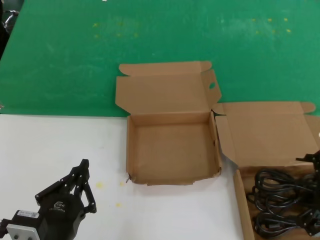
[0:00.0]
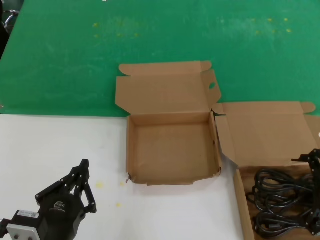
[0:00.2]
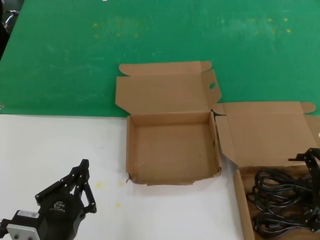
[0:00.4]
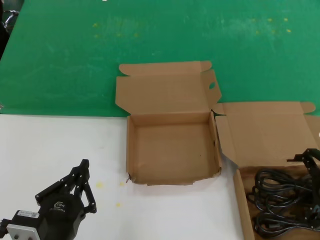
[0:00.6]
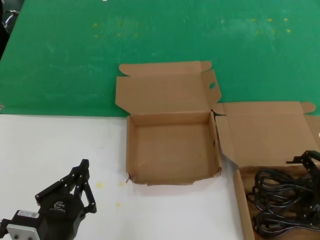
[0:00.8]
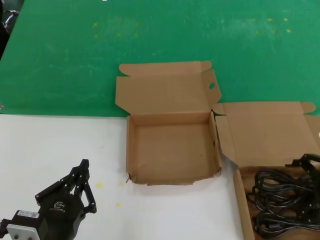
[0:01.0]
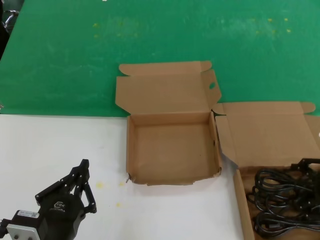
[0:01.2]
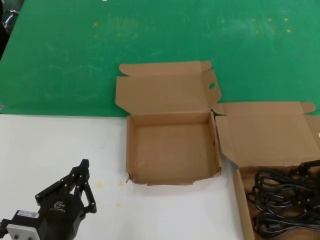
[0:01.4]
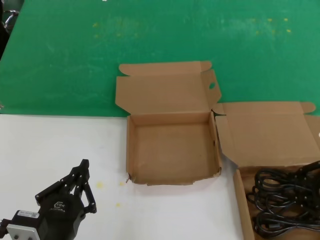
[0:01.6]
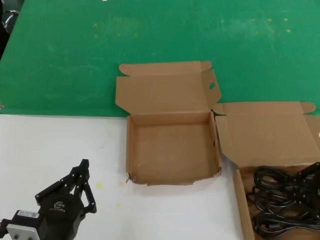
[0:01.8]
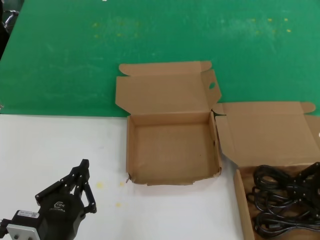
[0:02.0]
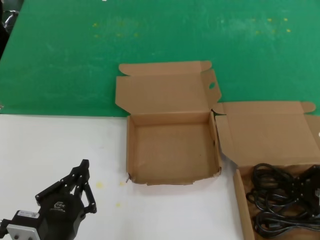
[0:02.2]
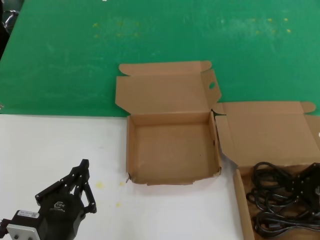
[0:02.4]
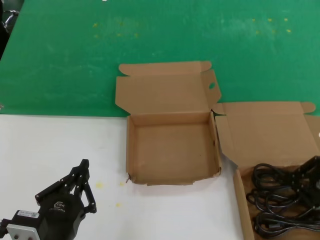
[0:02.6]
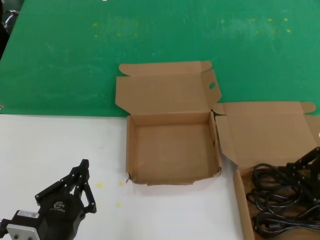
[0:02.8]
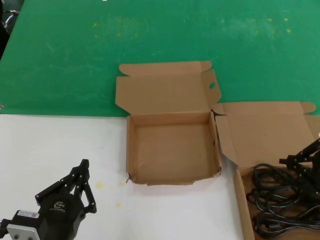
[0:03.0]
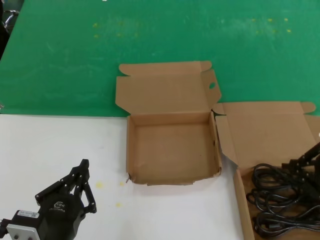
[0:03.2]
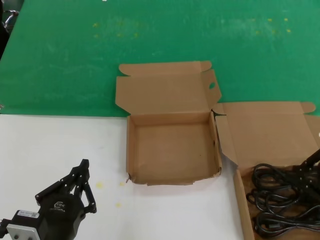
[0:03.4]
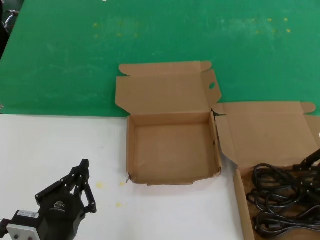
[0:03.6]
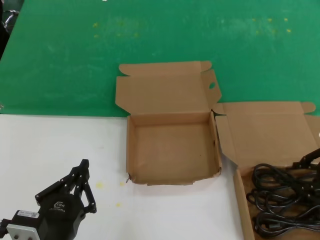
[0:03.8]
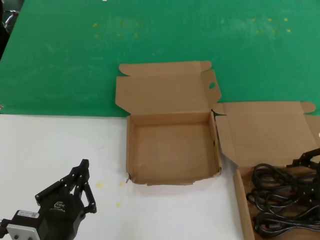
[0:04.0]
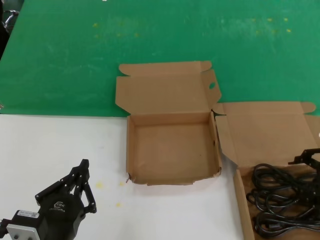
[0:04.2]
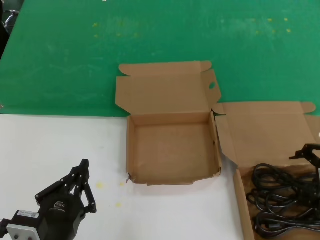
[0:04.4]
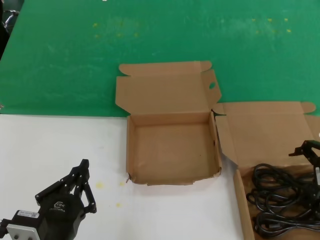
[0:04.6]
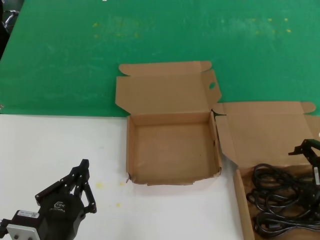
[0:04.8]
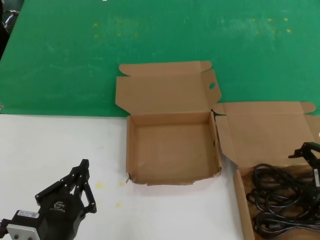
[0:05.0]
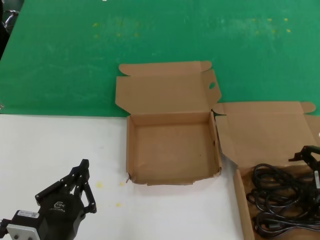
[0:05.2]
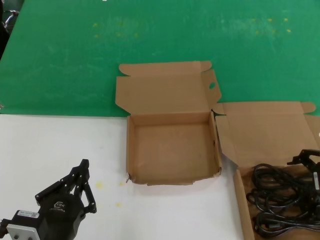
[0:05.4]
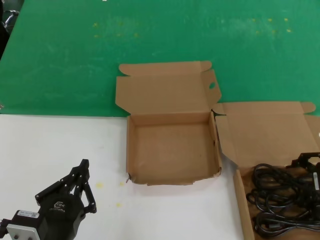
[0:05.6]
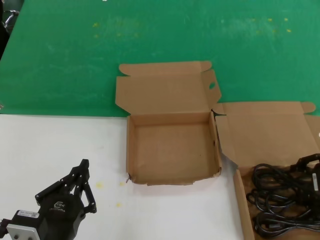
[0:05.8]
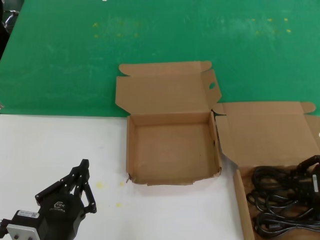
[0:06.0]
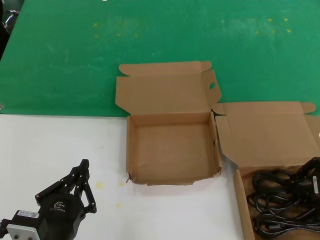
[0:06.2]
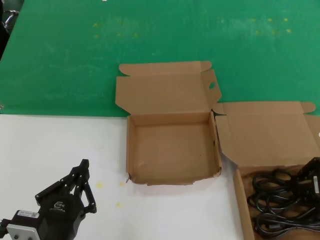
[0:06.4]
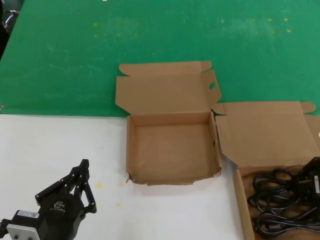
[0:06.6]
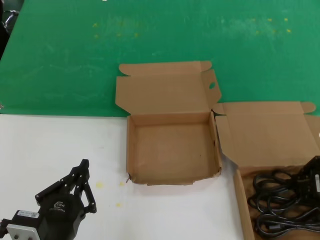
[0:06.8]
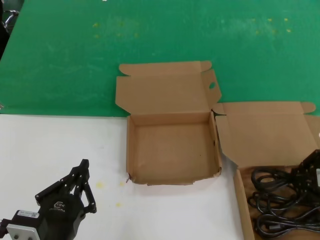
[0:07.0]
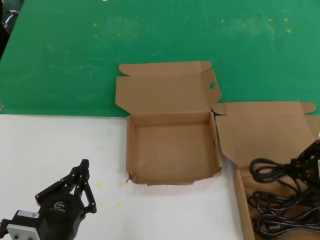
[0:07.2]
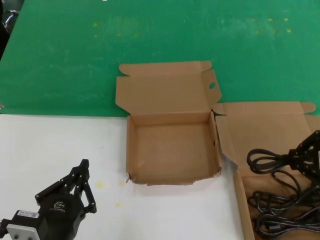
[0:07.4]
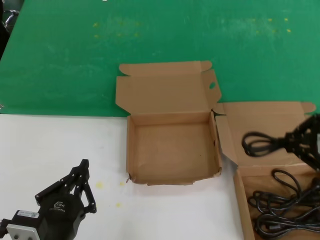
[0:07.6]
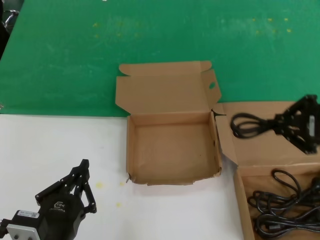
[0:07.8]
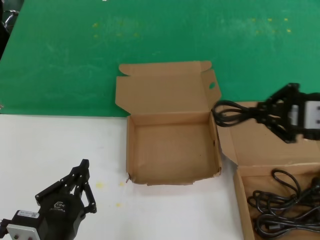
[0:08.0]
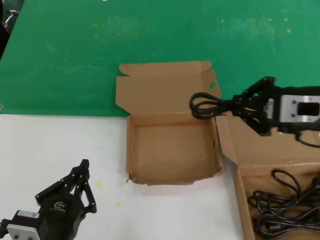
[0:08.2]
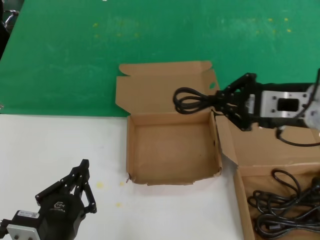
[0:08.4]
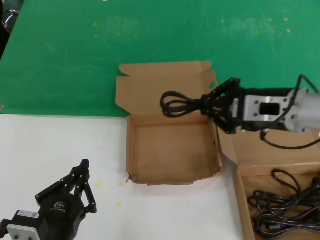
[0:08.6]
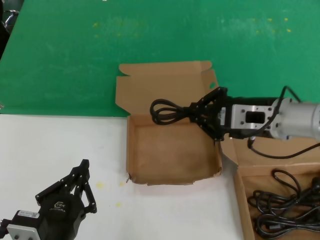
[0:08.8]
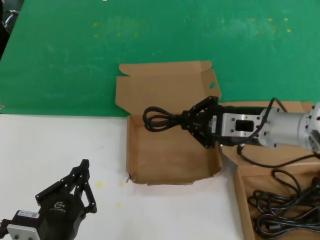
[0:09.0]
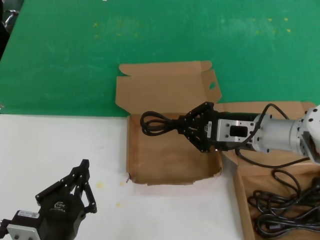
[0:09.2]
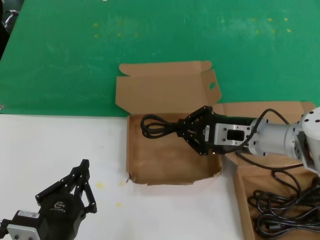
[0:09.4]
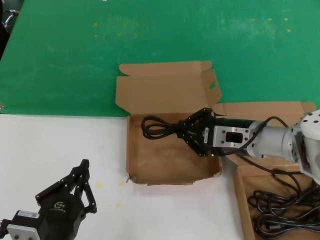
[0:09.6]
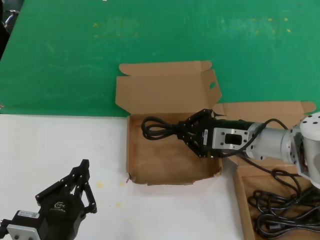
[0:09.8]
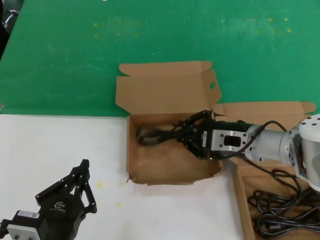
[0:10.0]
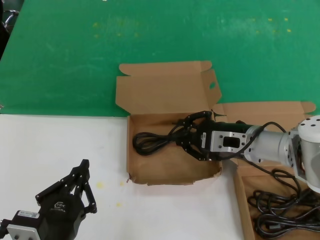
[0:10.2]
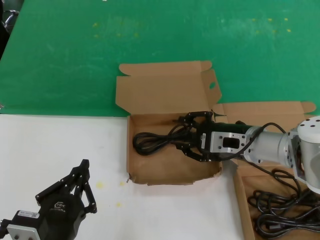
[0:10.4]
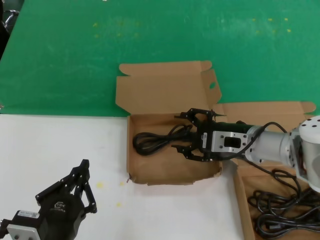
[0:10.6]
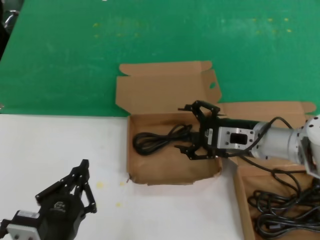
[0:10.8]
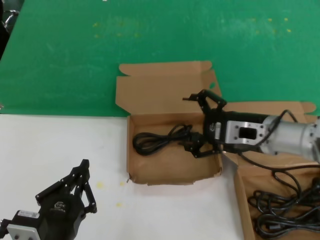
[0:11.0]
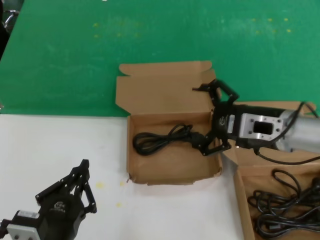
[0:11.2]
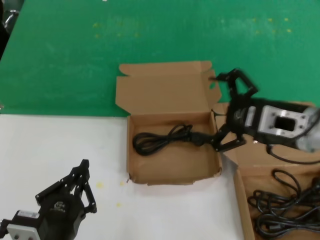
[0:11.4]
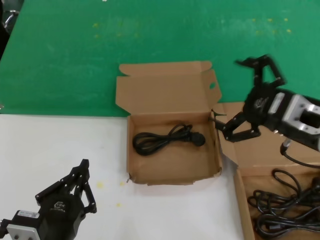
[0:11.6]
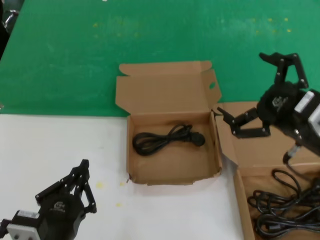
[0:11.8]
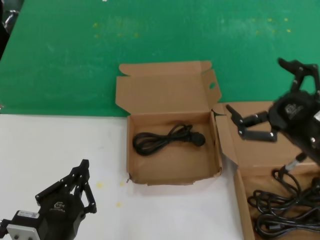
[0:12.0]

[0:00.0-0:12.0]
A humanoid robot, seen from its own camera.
Task of the whole recording: take the parts from the box containing them and put them into an empty box.
Step, 0:06.8 to 0:11.0: Place the data cable in the another box.
0:01.6 to 0:03.0: The hands make only small movements.
0:06.0 to 0:07.6: The right hand is displaced upward by roughly 5 cm.
0:07.6 to 0:09.0: The right hand heads to the left and forward, covering approximately 15 cm.
0:09.0 to 0:10.4: The right hand travels downward by roughly 5 cm.
0:10.4 to 0:12.0: The right hand moves backward and to the right, some 20 cm.

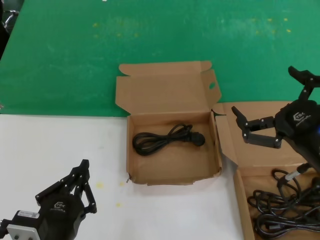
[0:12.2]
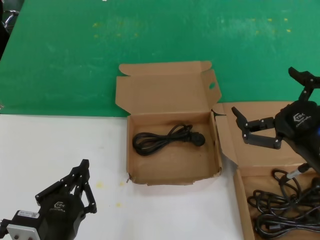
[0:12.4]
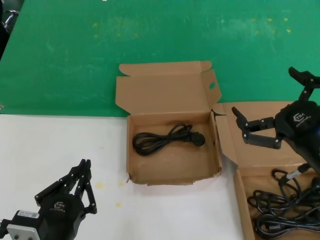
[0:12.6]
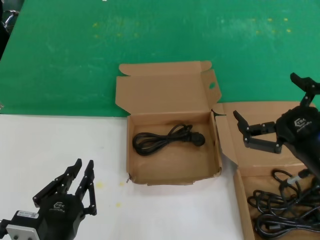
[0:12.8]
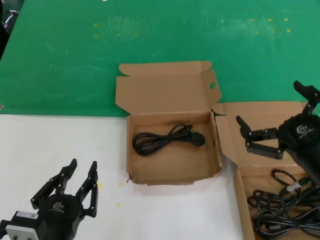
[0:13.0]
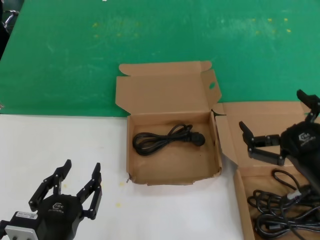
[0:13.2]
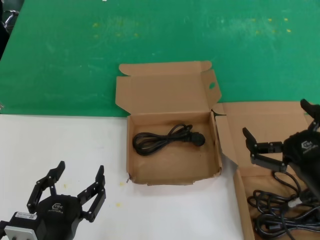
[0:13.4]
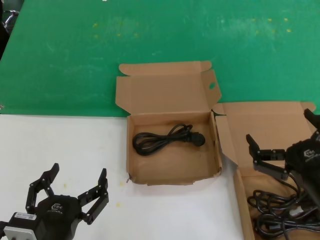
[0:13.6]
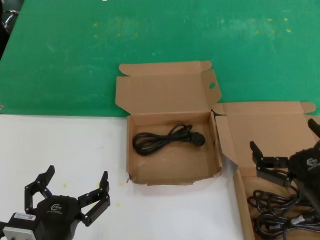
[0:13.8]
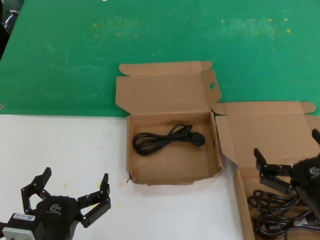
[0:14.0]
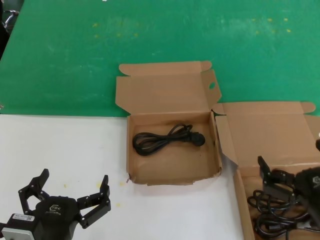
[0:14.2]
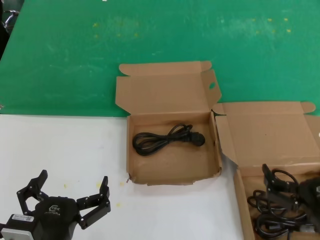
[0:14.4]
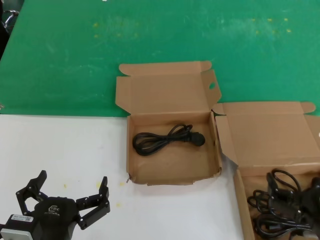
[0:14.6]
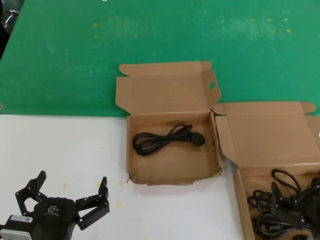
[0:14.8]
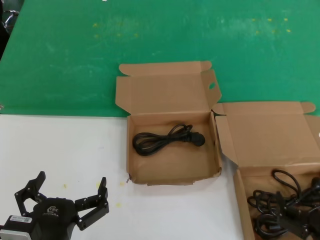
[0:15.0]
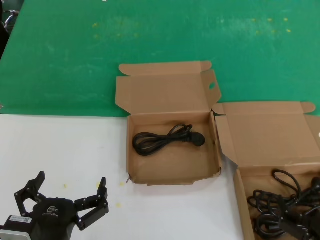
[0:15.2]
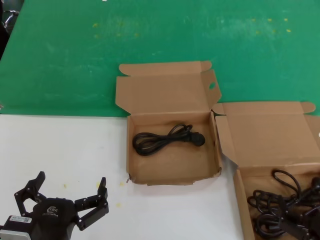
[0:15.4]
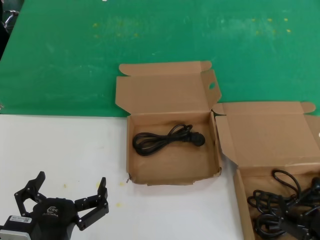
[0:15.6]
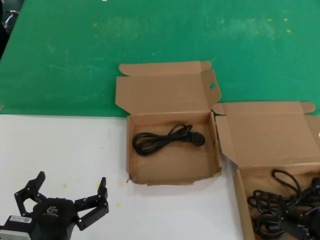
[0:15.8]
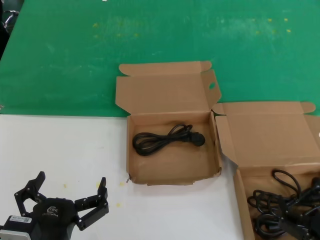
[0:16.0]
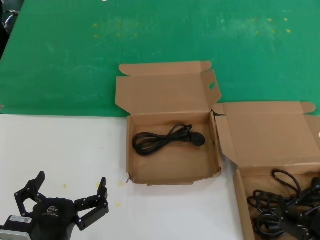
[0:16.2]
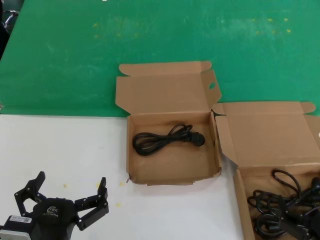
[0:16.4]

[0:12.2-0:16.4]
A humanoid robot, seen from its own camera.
Task of the whole recording: take the parts from the box containing them and put them into an empty box.
0:12.2 to 0:13.6: The right hand travels downward by approximately 5 cm.
0:13.6 to 0:15.0: The right hand goes some 10 cm downward.
0:15.0 to 0:16.4: Both hands stay put.

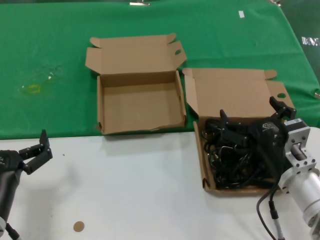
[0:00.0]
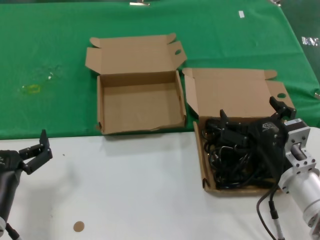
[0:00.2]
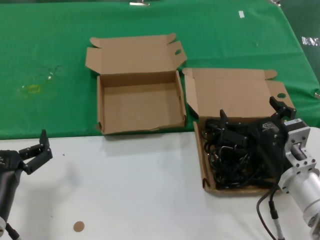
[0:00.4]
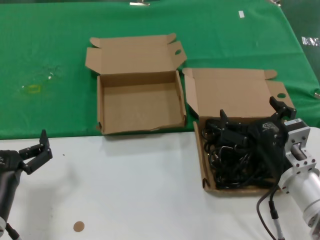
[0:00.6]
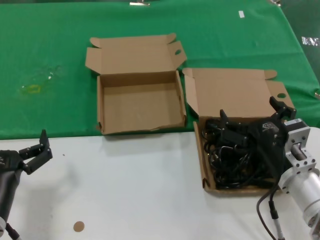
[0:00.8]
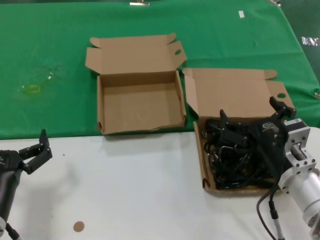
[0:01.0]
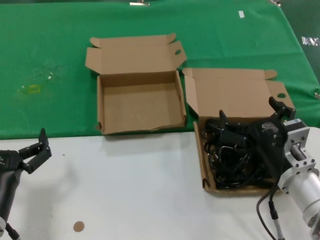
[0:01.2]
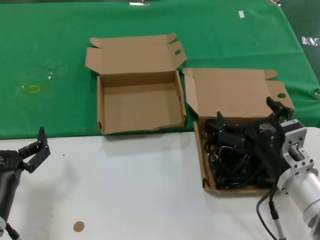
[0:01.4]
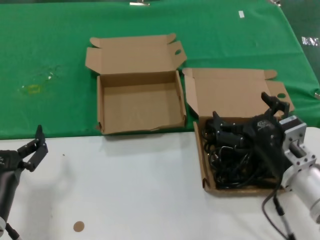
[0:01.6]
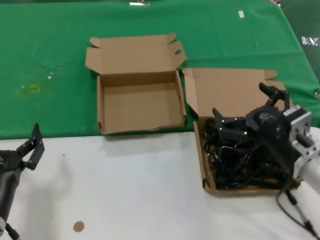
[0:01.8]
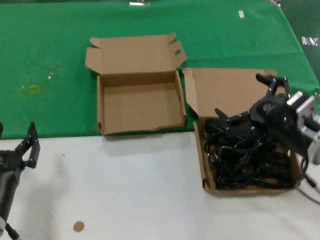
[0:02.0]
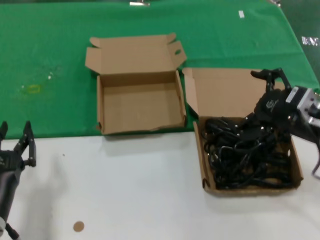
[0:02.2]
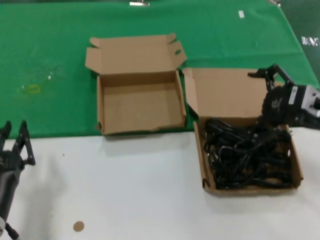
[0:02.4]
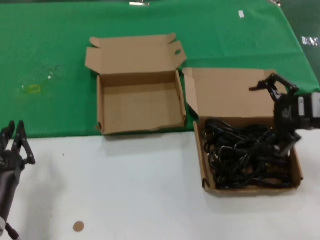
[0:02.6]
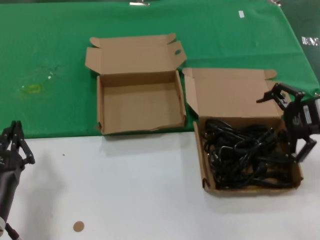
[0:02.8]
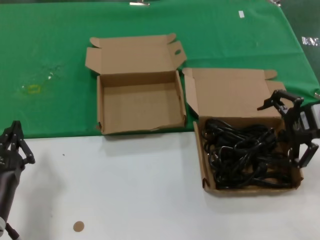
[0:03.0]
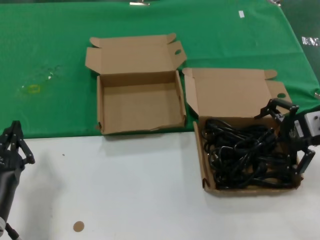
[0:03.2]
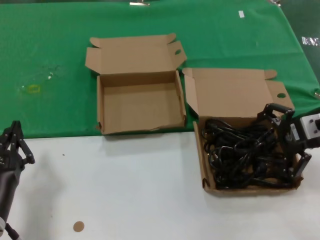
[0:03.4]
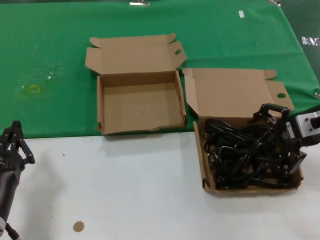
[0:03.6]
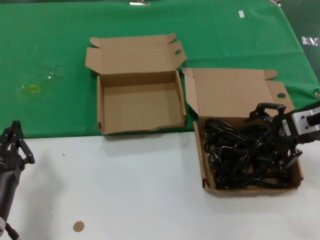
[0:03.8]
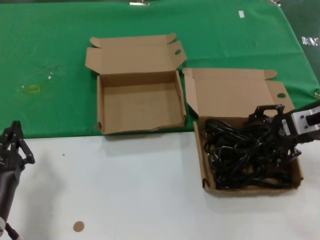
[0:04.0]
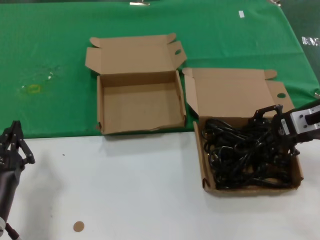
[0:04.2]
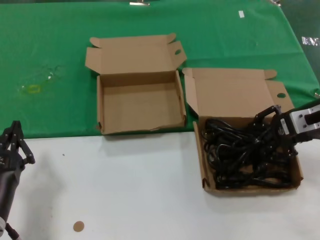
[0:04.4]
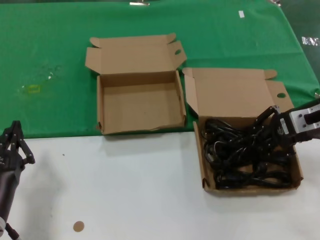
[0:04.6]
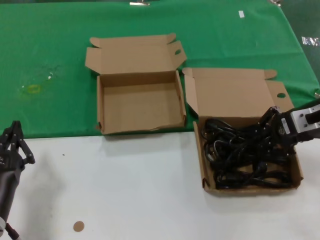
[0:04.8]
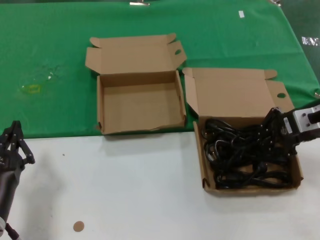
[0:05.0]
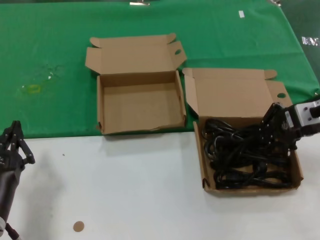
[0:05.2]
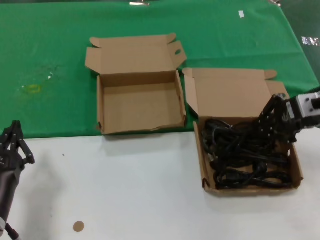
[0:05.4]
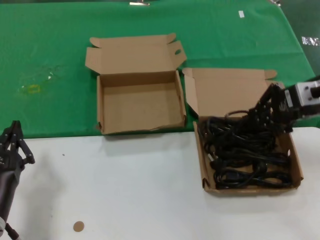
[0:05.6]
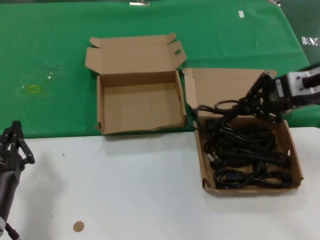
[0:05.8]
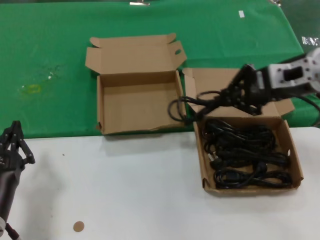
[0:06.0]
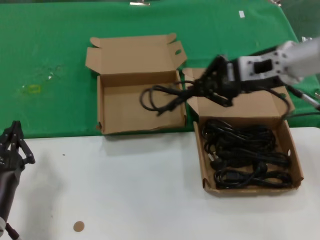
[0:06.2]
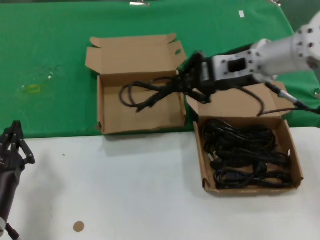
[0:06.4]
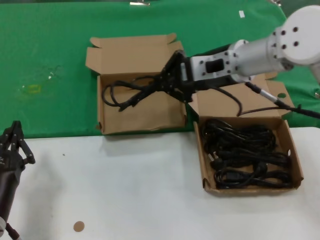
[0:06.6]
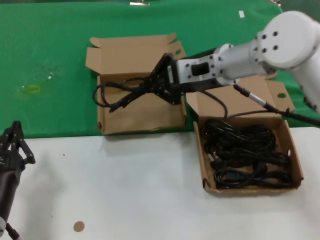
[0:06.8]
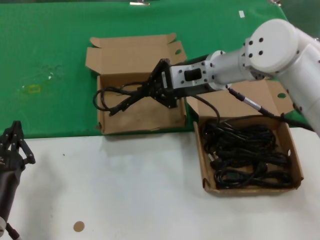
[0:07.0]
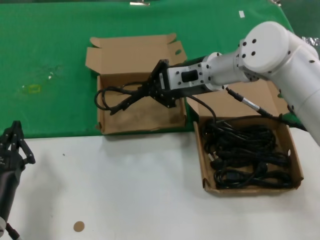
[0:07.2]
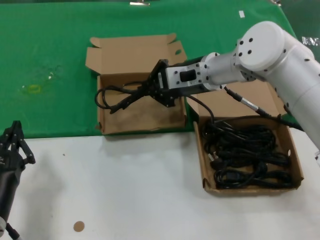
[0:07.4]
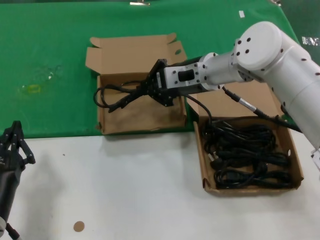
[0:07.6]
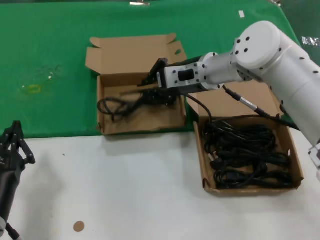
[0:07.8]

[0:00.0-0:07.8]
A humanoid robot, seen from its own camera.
Task of the whole recording: take the parts from the box containing them and put them into an empty box.
Step, 0:00.0 to 0:04.6: Grasp the data cable.
0:00.0 to 0:01.6: The hands move only a little.
0:01.6 to 0:03.2: The right hand travels upward, to the right and forward by about 20 cm.
0:03.2 to 0:04.6: The hands make only small movements.
0:04.6 to 0:06.2: The right hand travels to the left and upward by approximately 10 cm.
0:06.2 to 0:07.8: The right hand travels to the left, forward and downward by approximately 15 cm.
